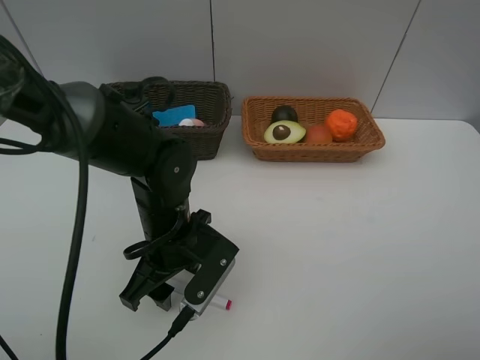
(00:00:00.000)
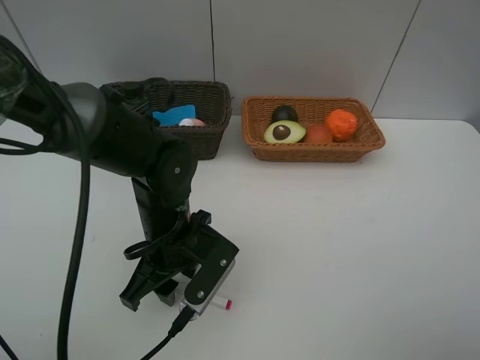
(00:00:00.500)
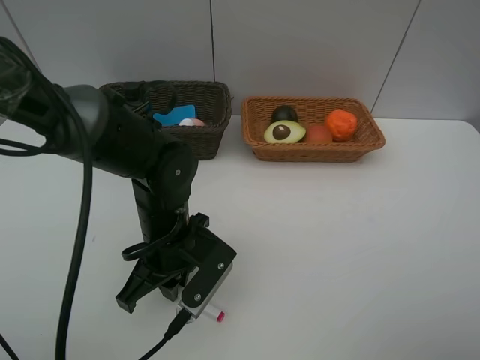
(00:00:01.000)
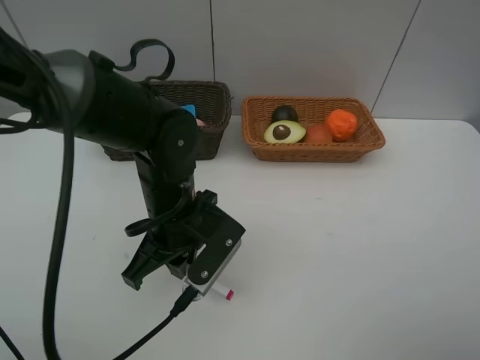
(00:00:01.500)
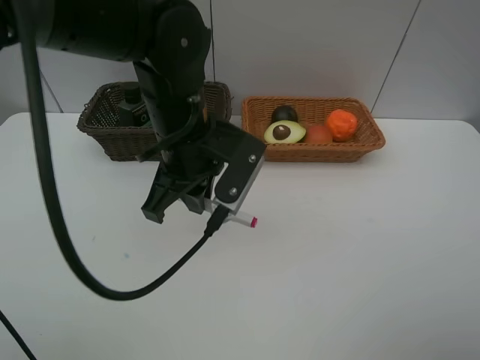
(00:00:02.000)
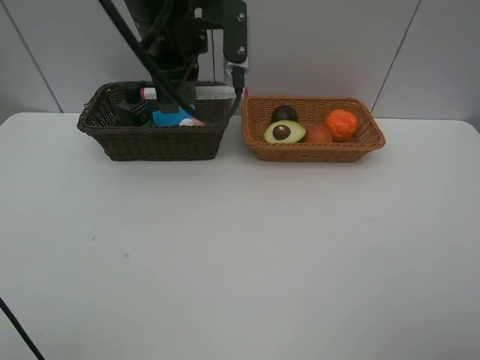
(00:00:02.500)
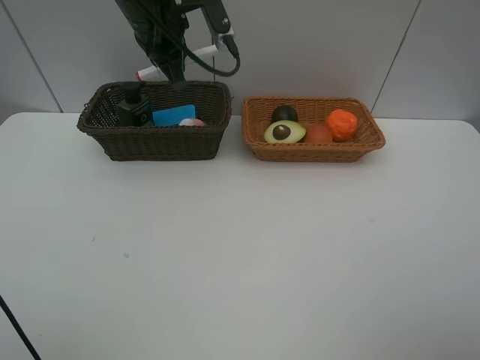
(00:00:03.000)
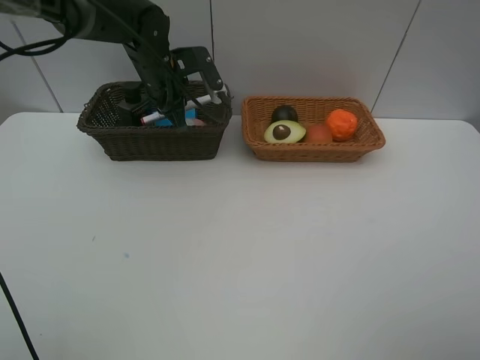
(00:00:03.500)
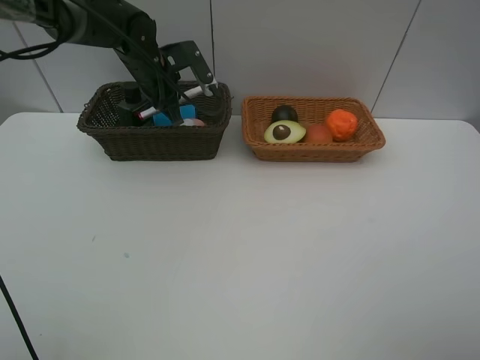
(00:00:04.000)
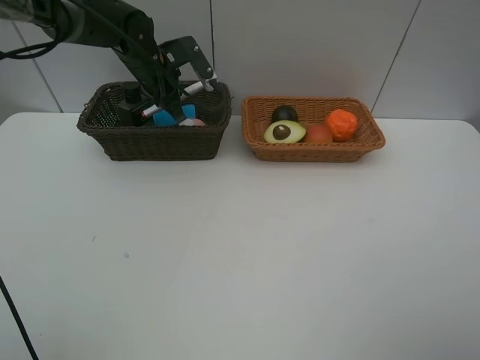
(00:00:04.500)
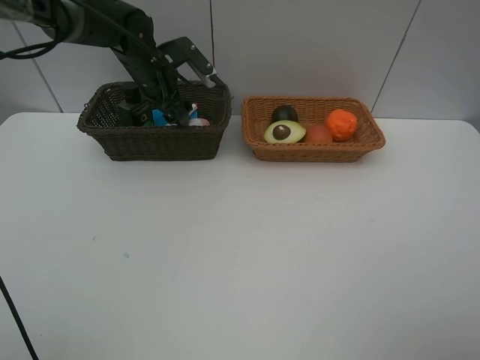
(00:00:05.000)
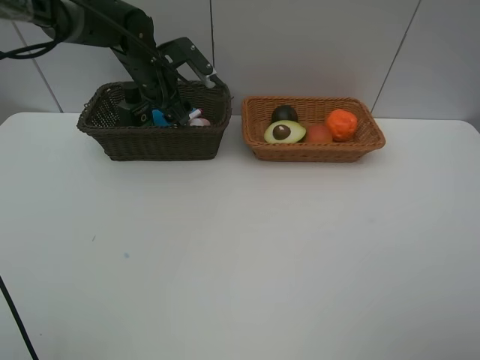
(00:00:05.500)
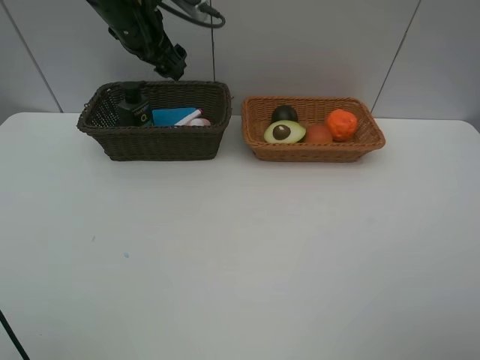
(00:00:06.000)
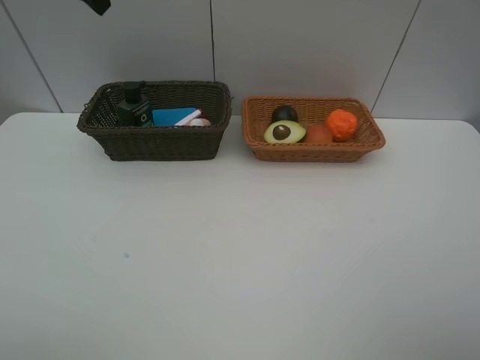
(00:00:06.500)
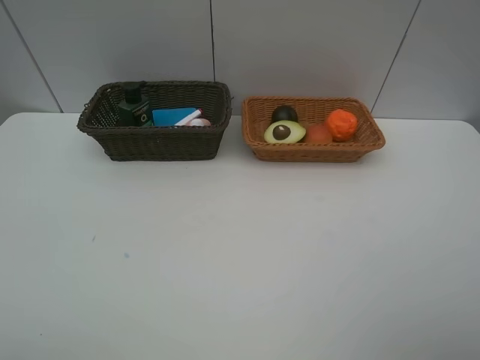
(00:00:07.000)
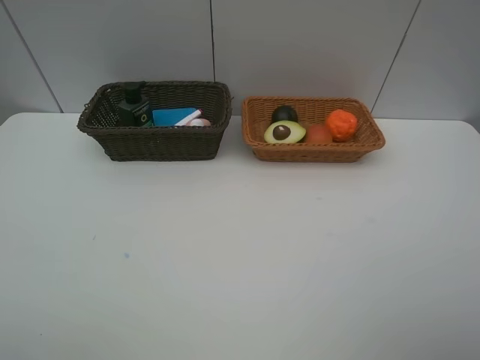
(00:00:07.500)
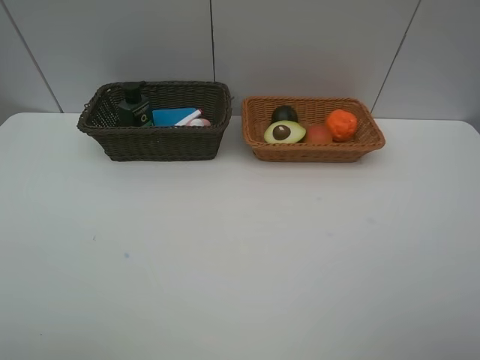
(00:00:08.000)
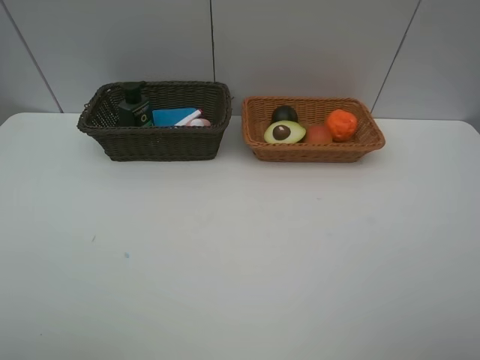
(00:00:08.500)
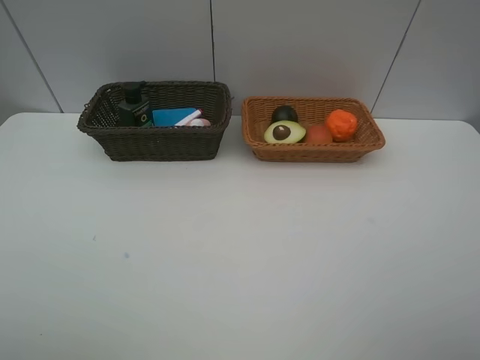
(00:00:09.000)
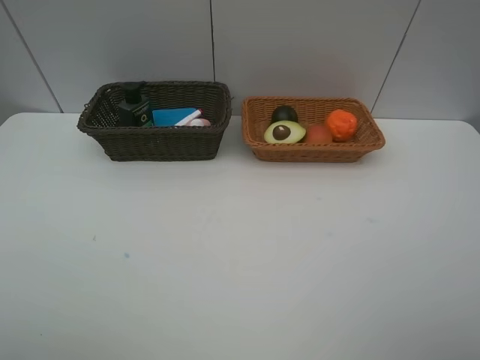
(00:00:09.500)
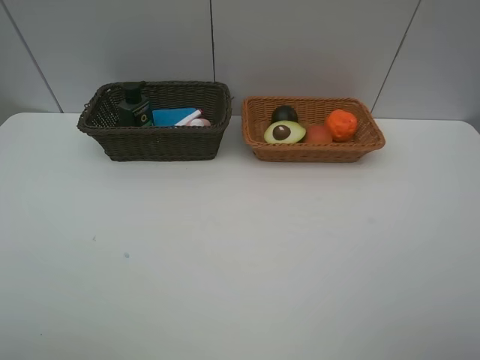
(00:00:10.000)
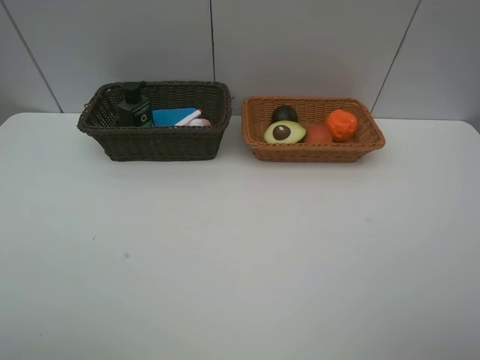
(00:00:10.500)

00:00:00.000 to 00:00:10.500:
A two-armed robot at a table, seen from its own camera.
Task of the whole recording: Place multiple objects separately in different baskets.
Step, 00:00:02.000 to 00:00:05.500: Place the red marker in the dark basket with left gripper.
00:00:00.000 to 00:00:02.000: The left gripper goes about 15 cm upward and forward, and closes up.
00:00:02.000 to 00:00:04.000: The left gripper is displaced forward and to the left by about 20 cm.
00:00:04.000 to 00:00:06.500: The left gripper heads upward and backward, covering about 25 cm, and opens its fingers.

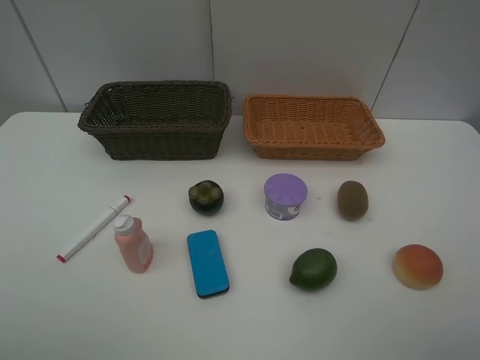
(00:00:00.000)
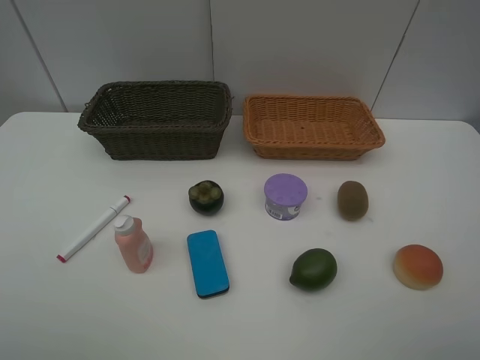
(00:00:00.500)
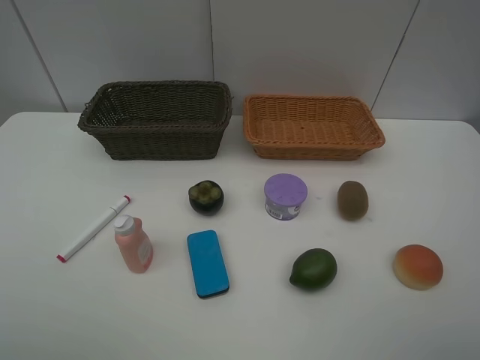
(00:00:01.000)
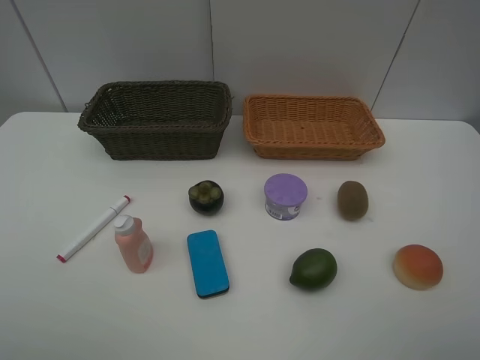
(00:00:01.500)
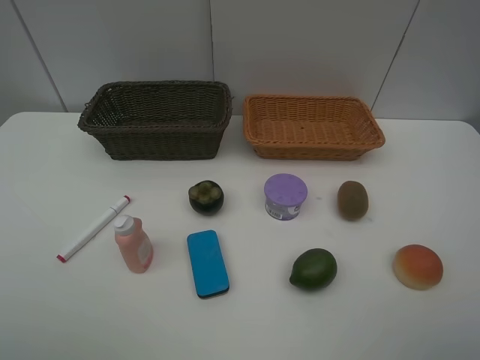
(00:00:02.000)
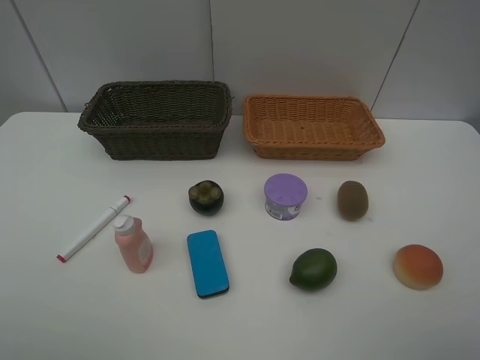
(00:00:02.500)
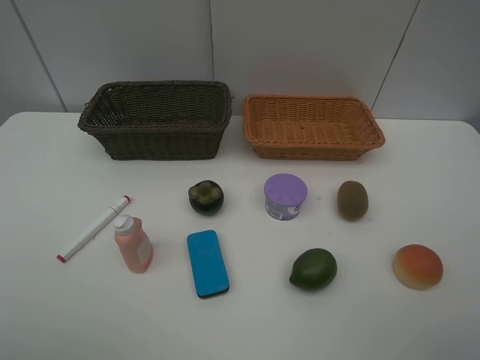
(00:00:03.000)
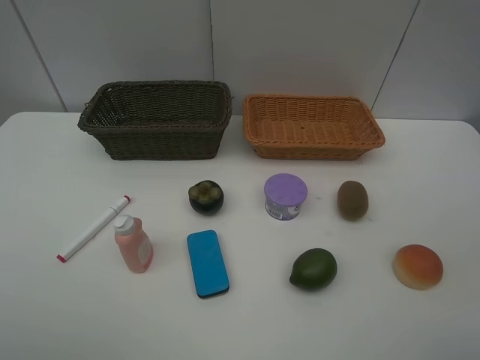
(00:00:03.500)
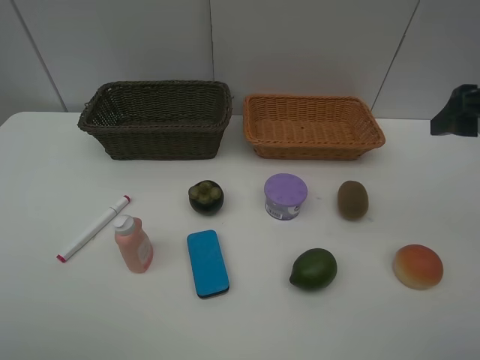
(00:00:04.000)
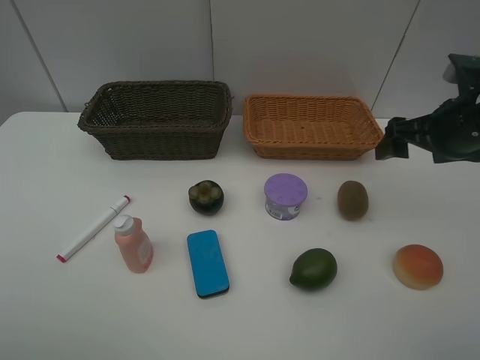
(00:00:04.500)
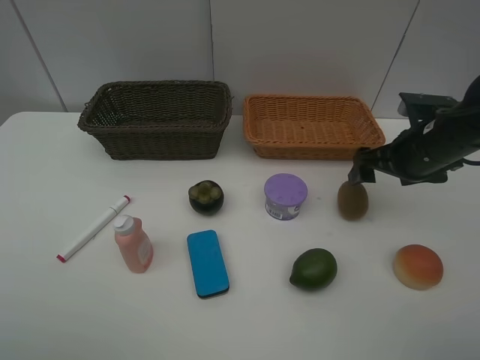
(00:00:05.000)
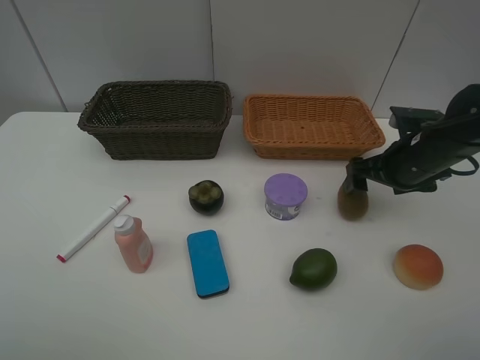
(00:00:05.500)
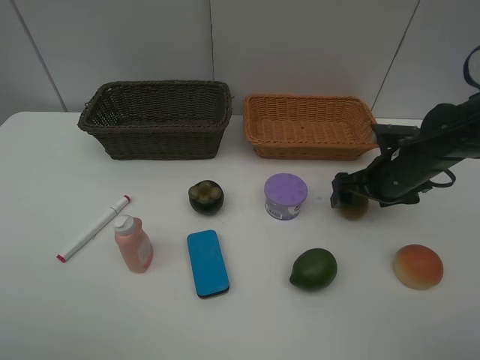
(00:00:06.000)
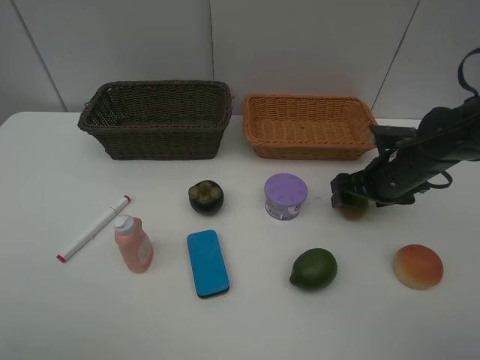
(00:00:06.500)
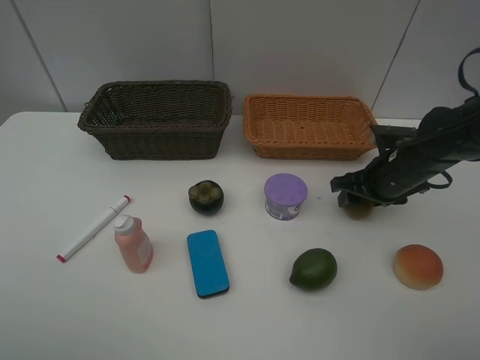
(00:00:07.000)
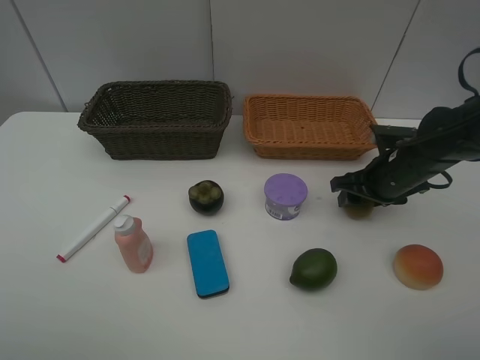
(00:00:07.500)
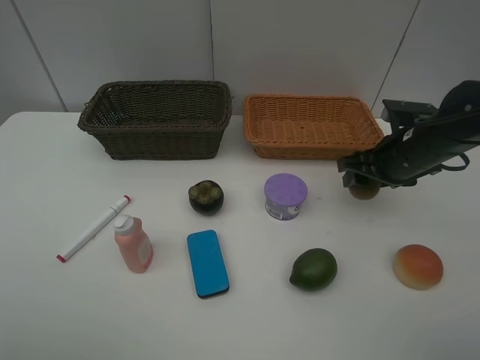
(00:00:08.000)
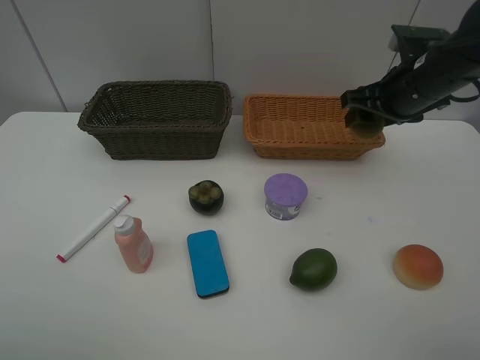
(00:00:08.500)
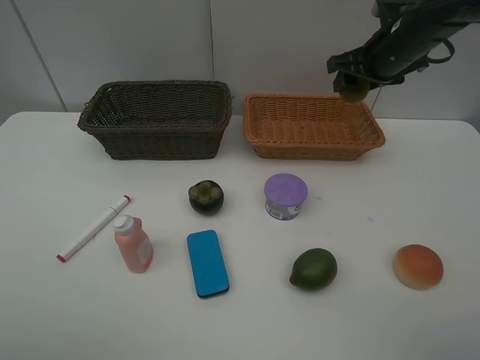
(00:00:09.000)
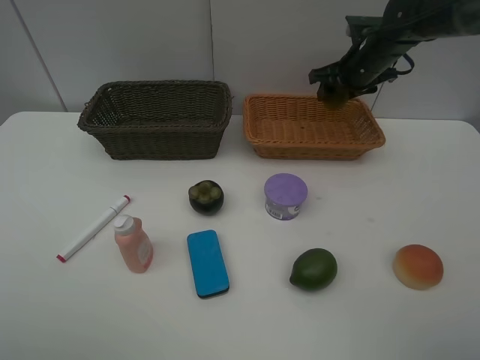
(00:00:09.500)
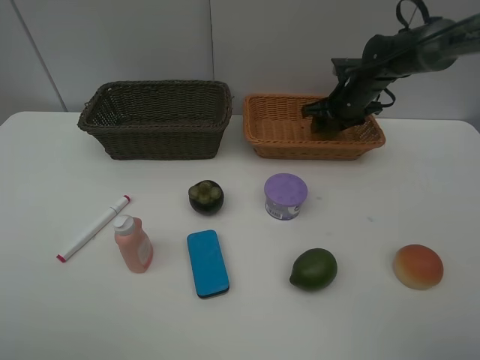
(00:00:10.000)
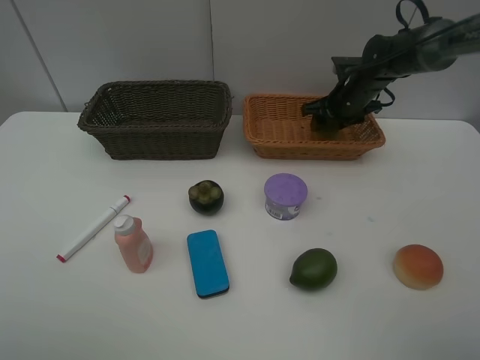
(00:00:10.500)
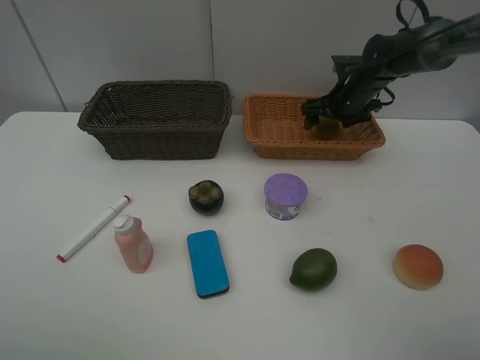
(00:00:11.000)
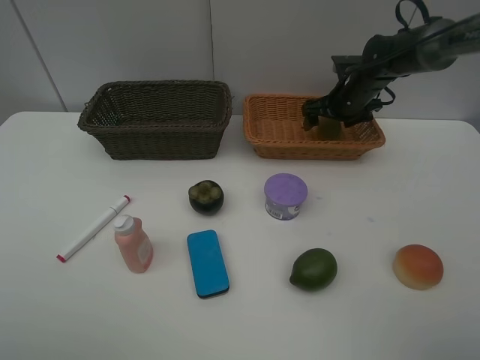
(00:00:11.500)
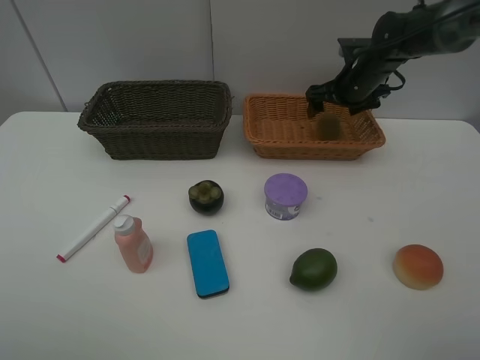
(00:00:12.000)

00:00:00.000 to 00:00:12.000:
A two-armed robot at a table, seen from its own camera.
Task of the whole recording: Place multiple objects separately in different baskets.
Step, 00:00:00.000 to 00:00:07.500: Pick up kiwi with right gripper.
00:00:00.000 to 00:00:02.000: The two grippers keep their place.
00:00:02.000 to 00:00:04.000: The right gripper heads forward, covering some 20 cm.
00:00:04.000 to 00:00:06.000: The right gripper travels downward and forward by approximately 20 cm.
00:00:06.000 to 00:00:08.000: The right gripper closes up.
00:00:08.000 to 00:00:10.000: The right gripper shifts roughly 20 cm forward.
00:00:10.000 to 00:00:12.000: The right gripper opens up.

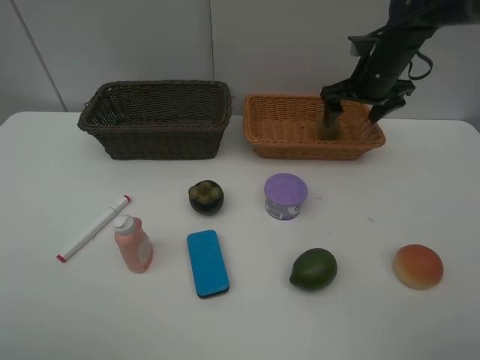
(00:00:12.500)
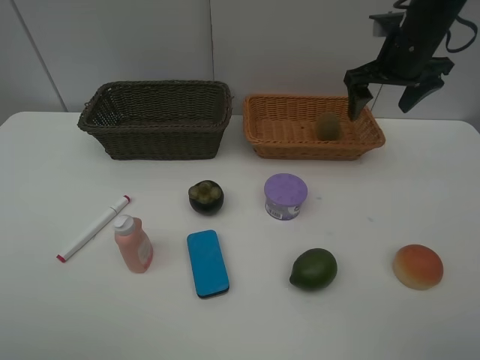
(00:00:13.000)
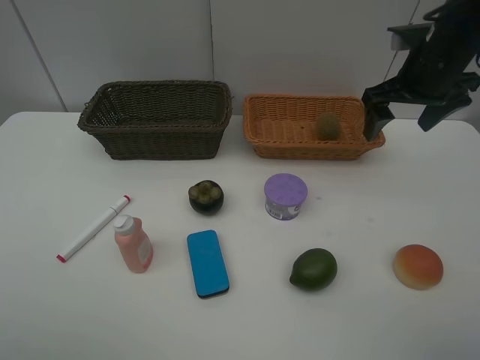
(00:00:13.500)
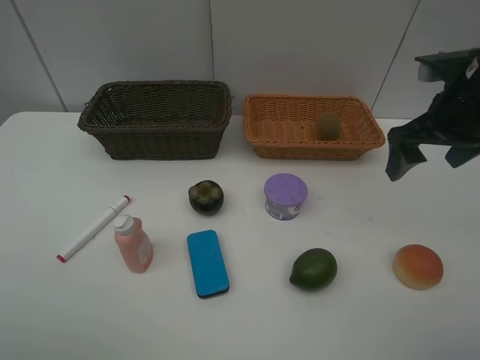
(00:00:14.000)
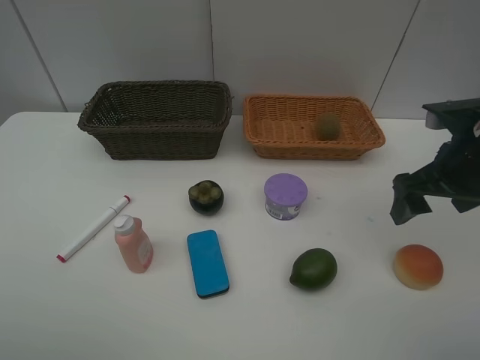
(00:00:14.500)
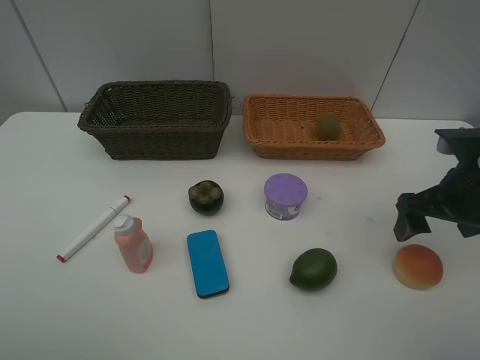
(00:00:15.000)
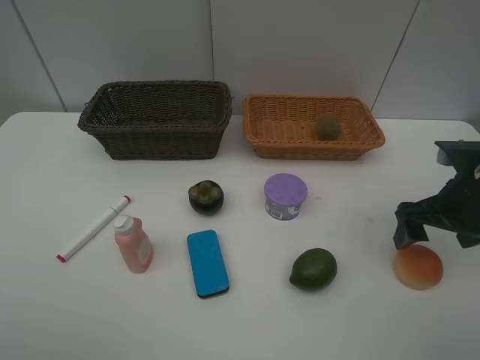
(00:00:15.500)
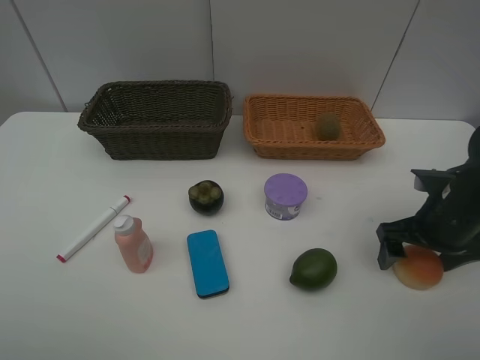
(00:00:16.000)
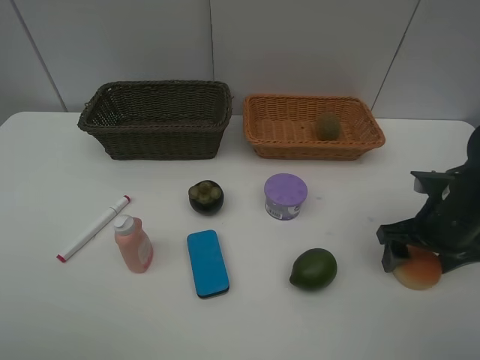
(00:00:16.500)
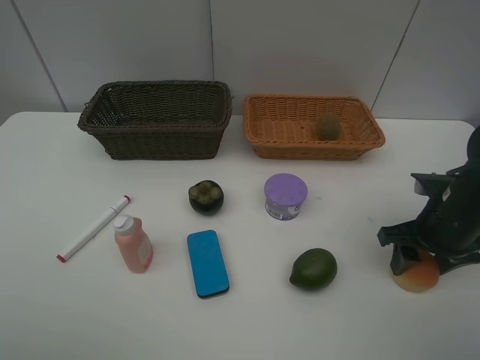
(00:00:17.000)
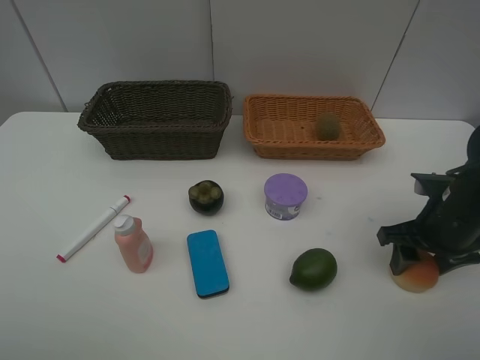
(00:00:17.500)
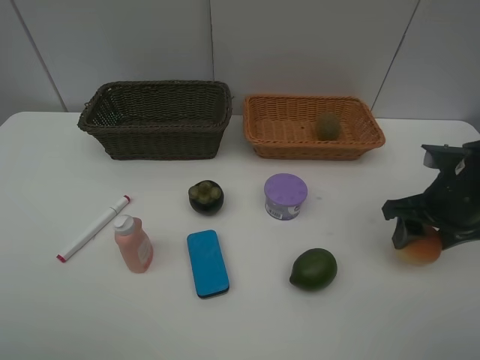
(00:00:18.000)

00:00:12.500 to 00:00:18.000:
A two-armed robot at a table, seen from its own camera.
Task of the whole recording: Place multiple objects separately in different baskets.
Step, 00:00:12.500 to 00:00:17.500: Pick up egg yolk pastry with right gripper.
00:00:12.500 to 00:00:14.500: The right gripper heads backward, covering approximately 20 cm.
00:00:14.500 to 00:00:16.000: The right gripper is displaced downward by roughly 10 cm.
00:00:16.000 to 00:00:18.000: The right gripper closes.
